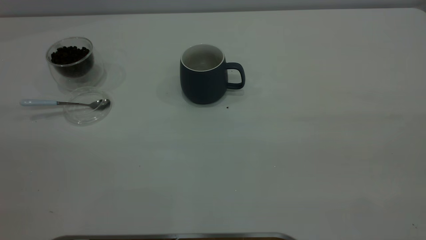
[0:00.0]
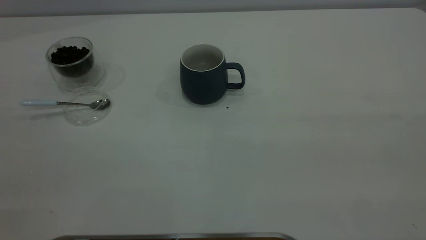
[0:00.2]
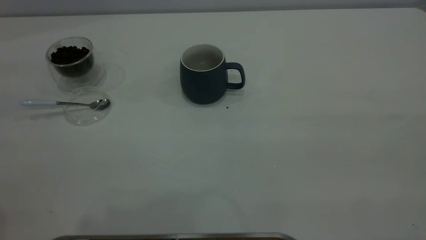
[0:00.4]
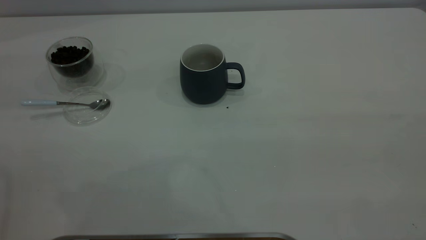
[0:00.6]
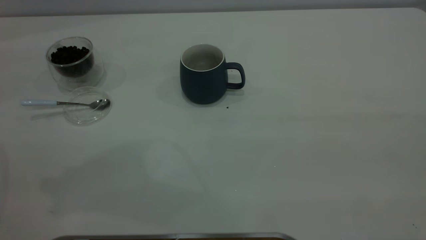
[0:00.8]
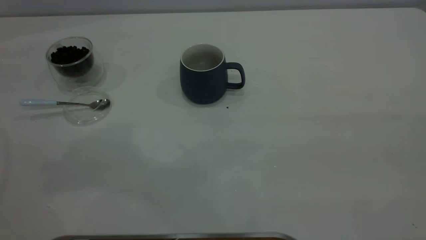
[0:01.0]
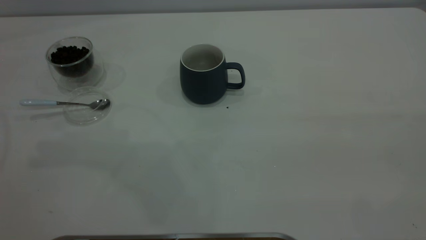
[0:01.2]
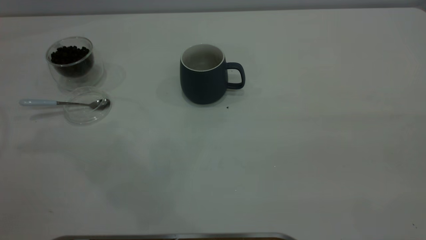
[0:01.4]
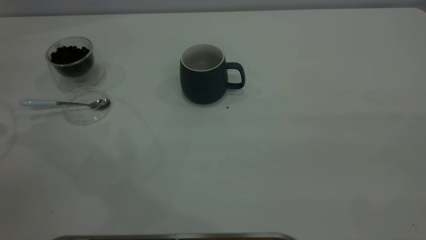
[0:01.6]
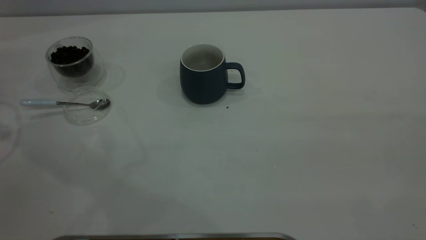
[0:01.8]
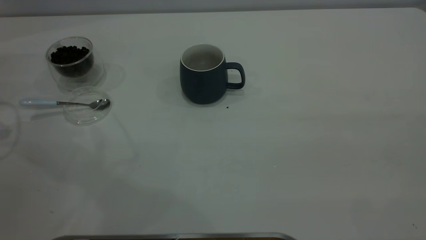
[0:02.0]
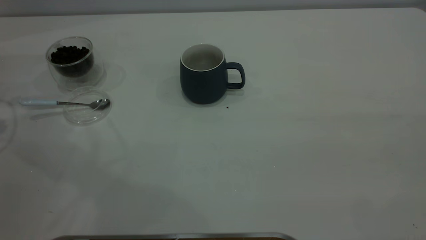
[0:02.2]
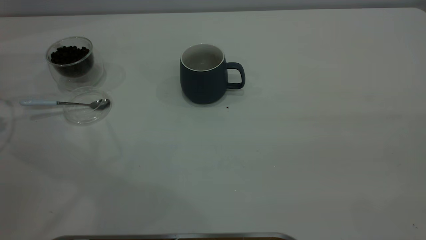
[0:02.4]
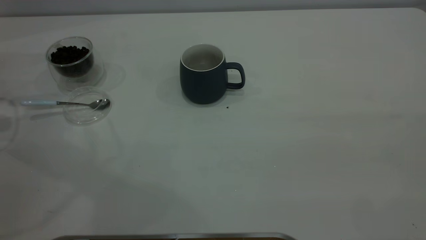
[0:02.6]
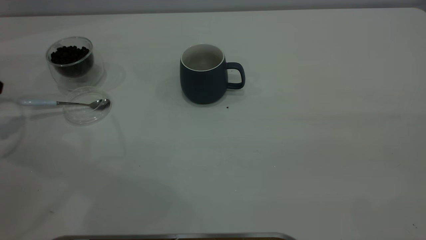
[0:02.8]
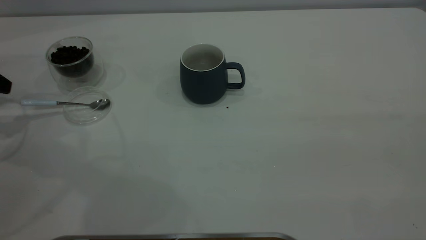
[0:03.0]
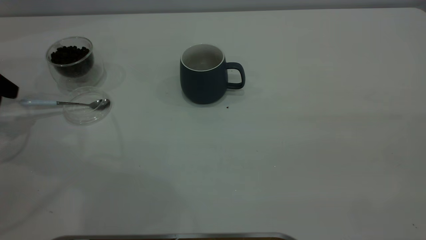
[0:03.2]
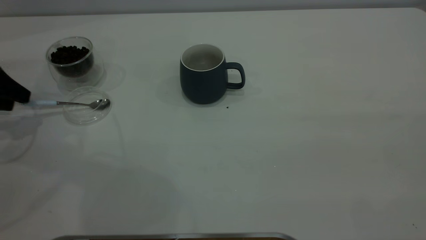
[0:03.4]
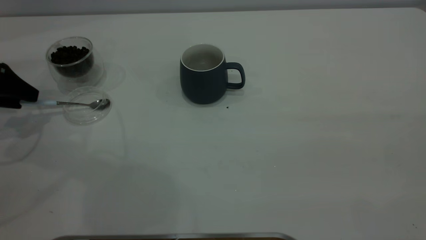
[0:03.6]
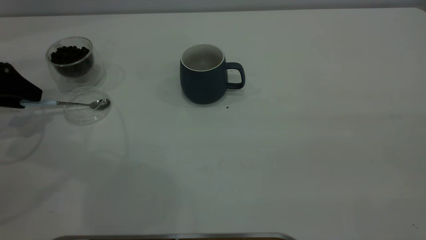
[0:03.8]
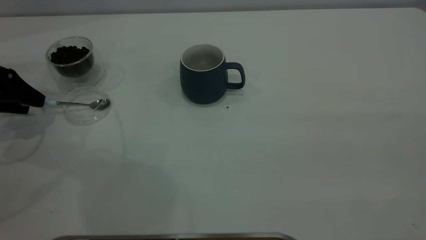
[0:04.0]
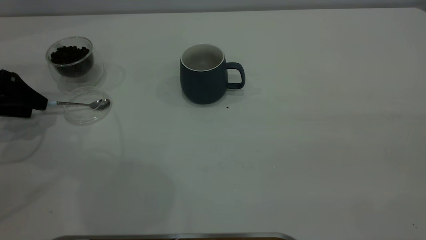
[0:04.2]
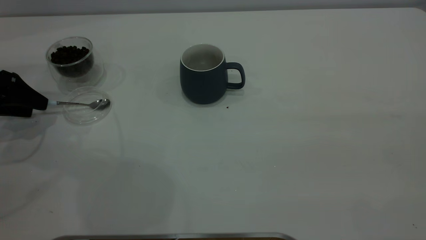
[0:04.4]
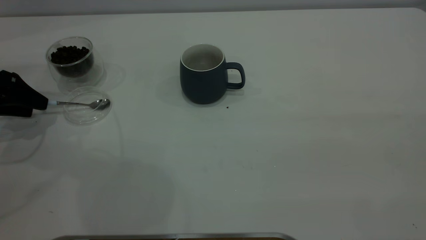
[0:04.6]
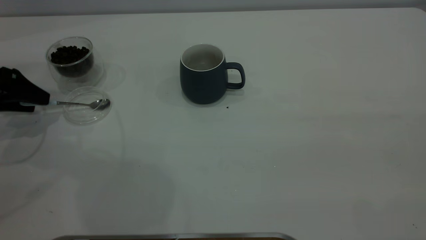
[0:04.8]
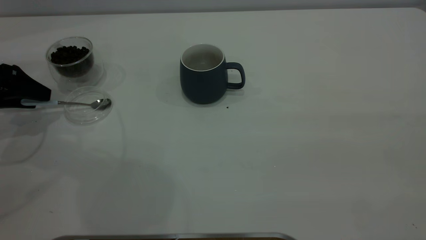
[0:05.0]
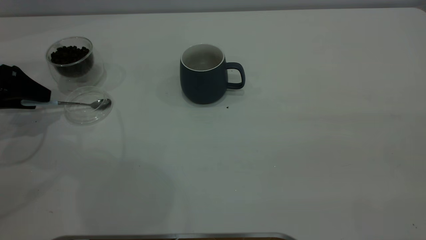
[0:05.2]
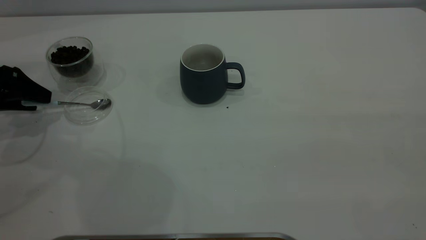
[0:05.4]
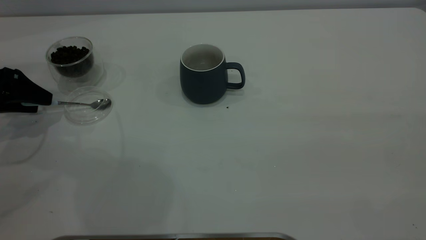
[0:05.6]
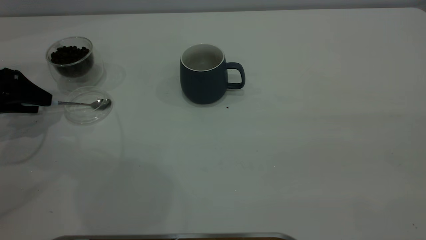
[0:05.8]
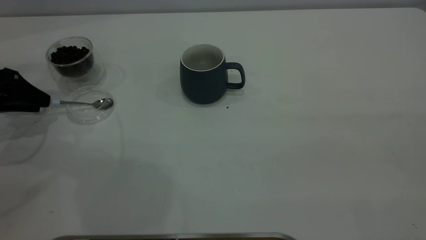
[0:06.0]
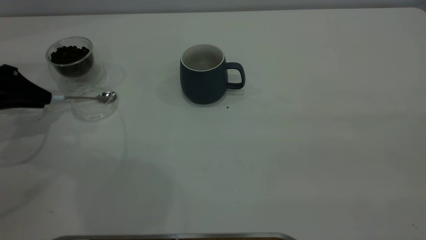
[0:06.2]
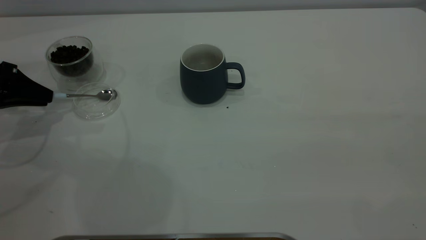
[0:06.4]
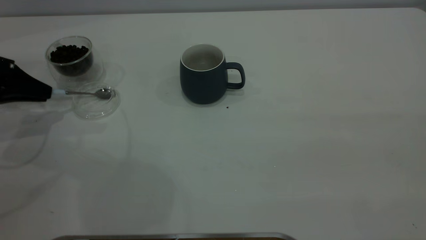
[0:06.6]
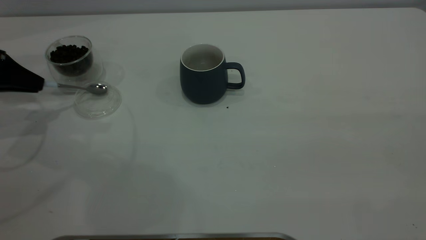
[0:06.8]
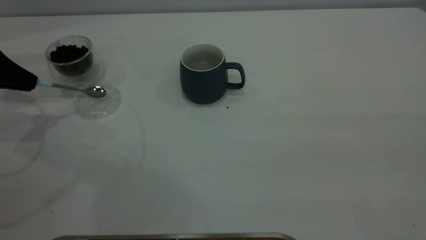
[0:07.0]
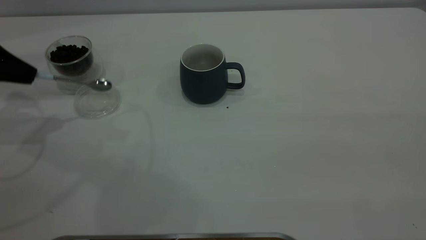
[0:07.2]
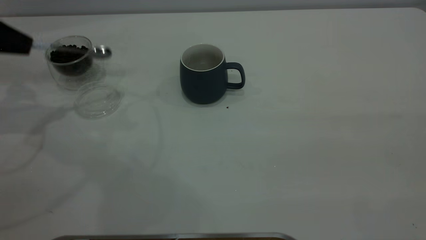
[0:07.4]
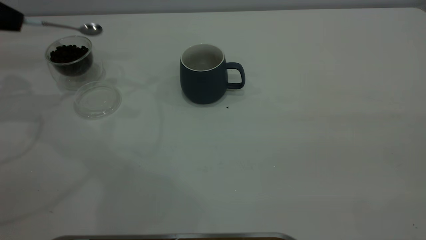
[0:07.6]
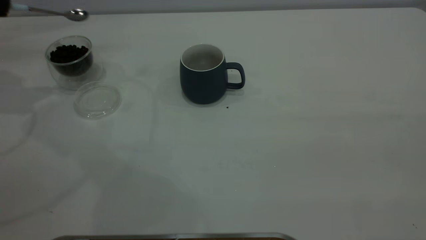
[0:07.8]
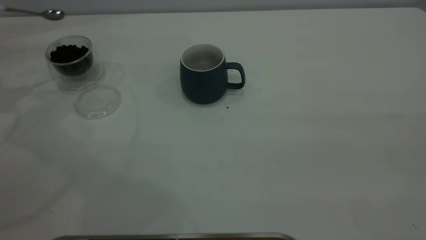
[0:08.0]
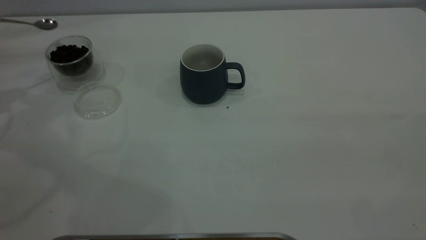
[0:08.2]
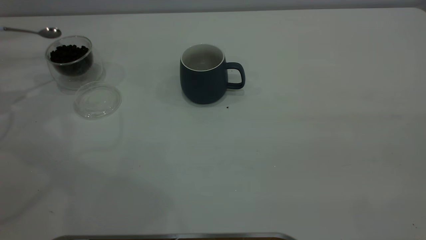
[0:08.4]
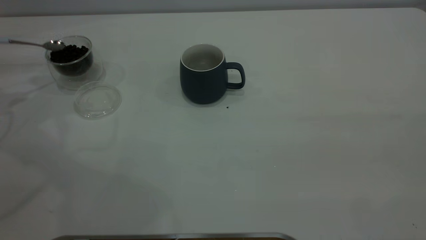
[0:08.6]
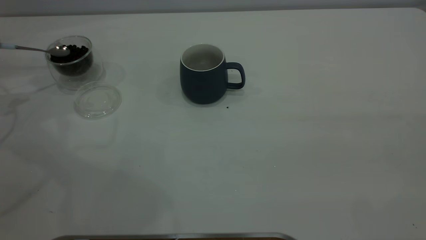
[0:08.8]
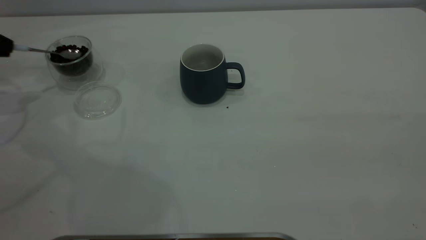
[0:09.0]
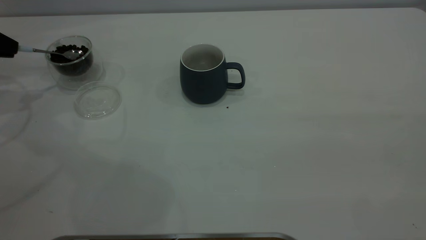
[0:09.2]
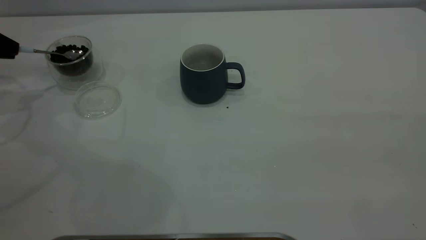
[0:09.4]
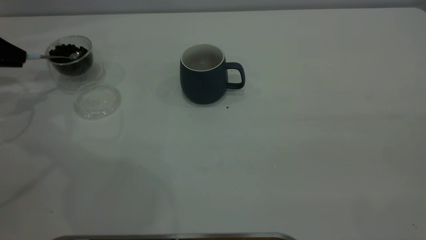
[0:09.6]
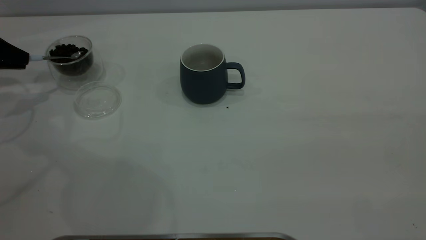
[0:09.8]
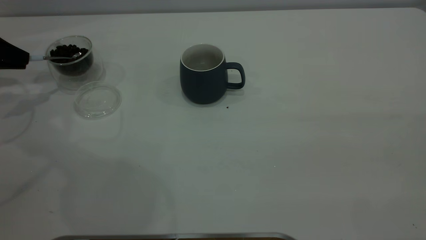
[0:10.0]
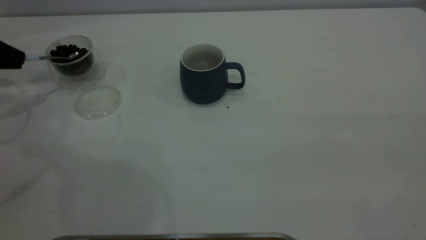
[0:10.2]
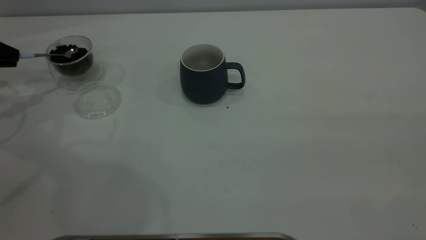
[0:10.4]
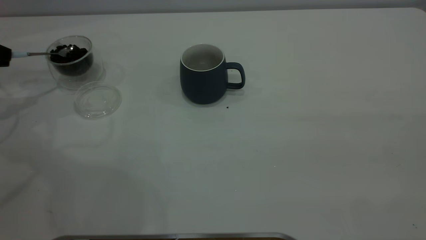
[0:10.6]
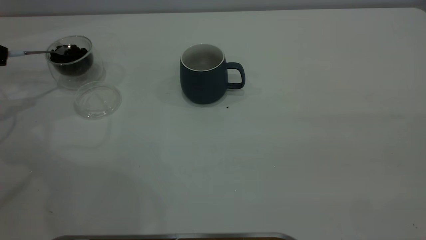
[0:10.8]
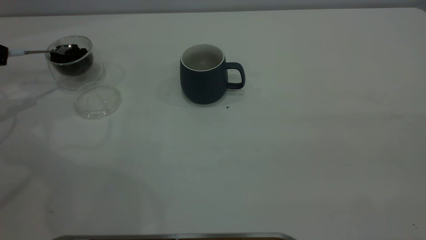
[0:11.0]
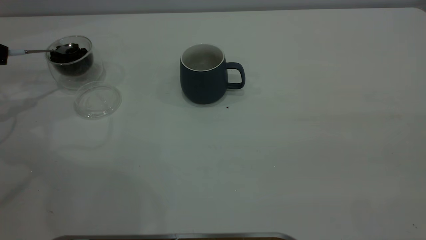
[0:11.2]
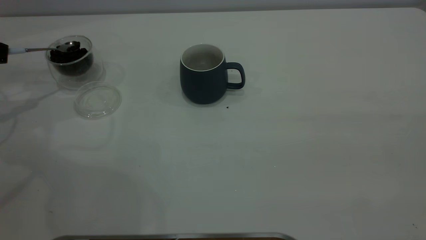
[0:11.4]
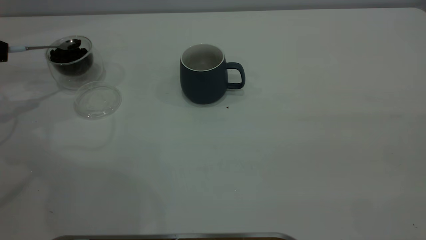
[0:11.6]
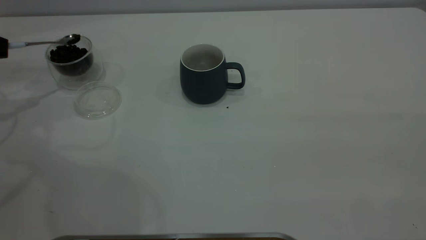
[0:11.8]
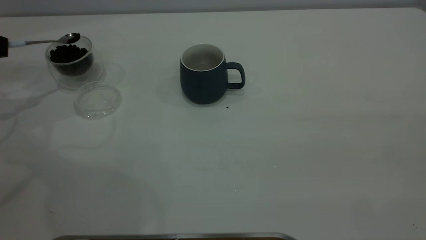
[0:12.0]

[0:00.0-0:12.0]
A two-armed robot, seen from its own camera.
Task of the whole recording: the right gripper place the grey cup in the center of the table, the left gripper take the blue spoon from the cup lid and scoop out the coffee beans from the coffee cup and put them into the grey cup, the left gripper put the spoon back into the cup lid.
Step, 0:00.0 to 0:07.6: Pick up the spoon.
0:03.0 to 0:04.4: The left gripper moves some 5 cm.
0:04.4 to 0:06.0: The left gripper closes.
0:06.0 to 0:07.6: The left gripper goes roughly 15 cm upward, and closes its fingers.
0:07.6 to 0:09.0: The left gripper goes approximately 5 cm downward.

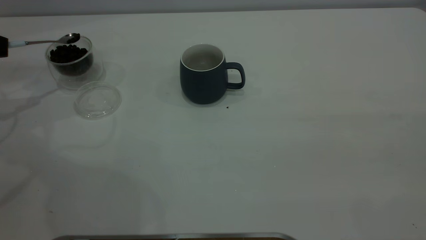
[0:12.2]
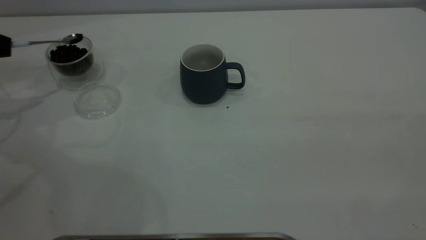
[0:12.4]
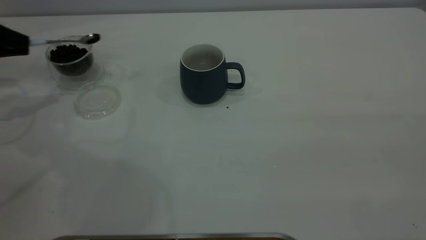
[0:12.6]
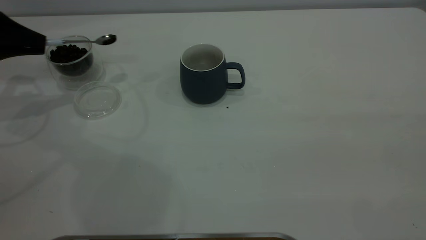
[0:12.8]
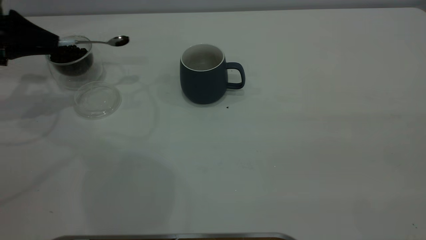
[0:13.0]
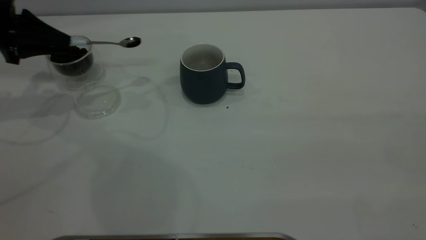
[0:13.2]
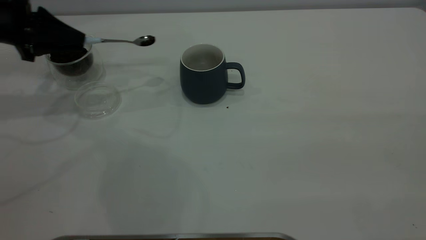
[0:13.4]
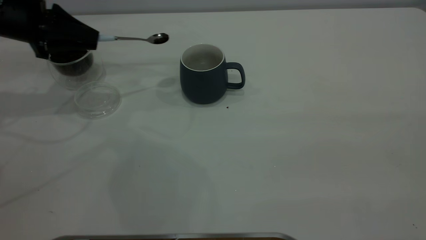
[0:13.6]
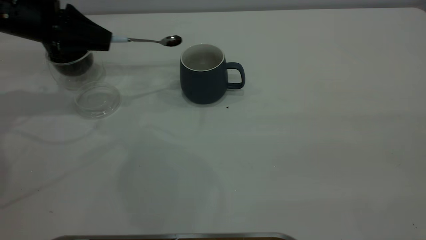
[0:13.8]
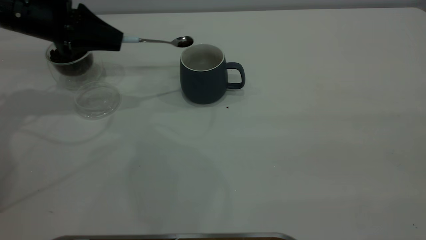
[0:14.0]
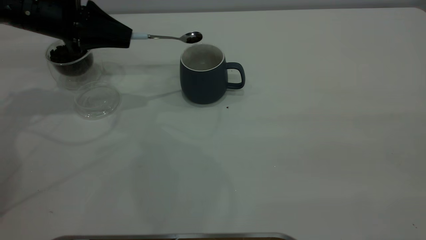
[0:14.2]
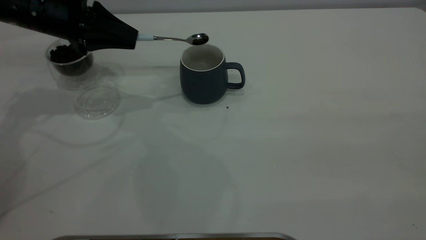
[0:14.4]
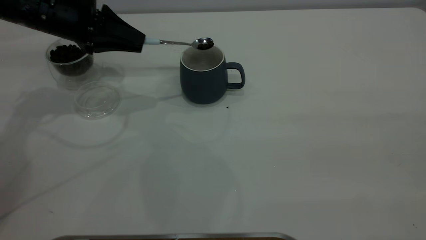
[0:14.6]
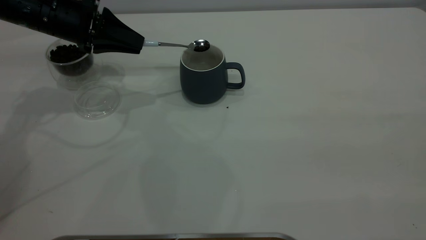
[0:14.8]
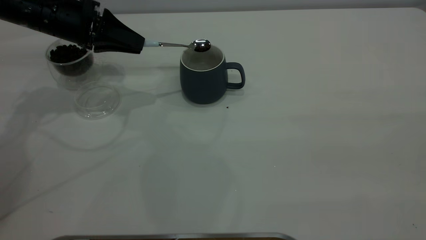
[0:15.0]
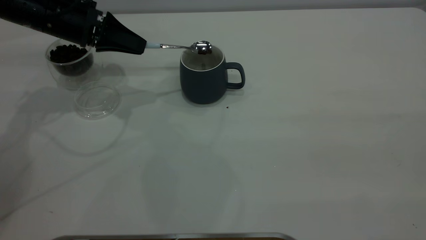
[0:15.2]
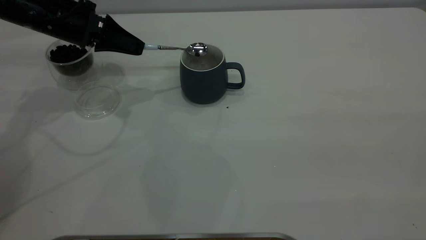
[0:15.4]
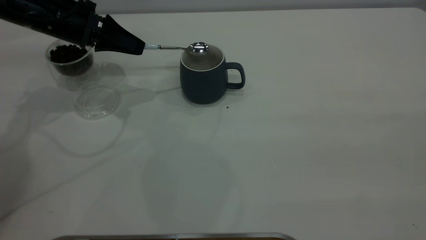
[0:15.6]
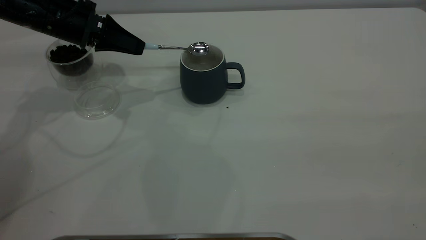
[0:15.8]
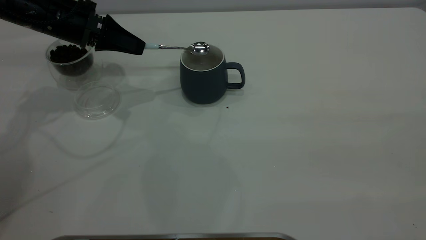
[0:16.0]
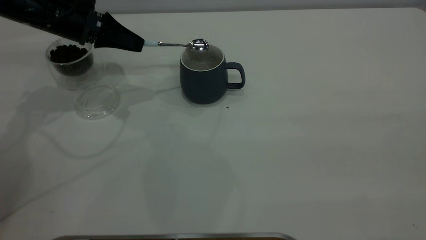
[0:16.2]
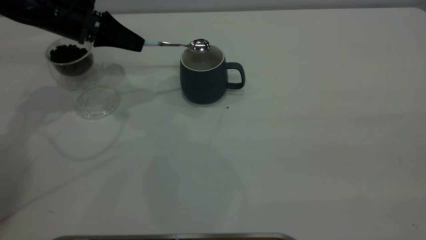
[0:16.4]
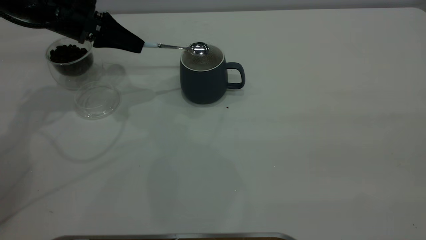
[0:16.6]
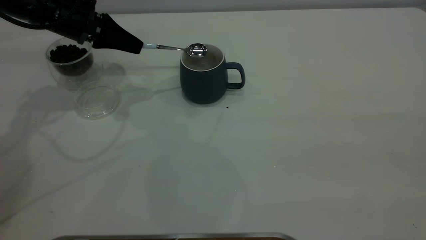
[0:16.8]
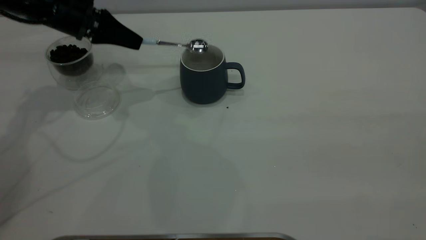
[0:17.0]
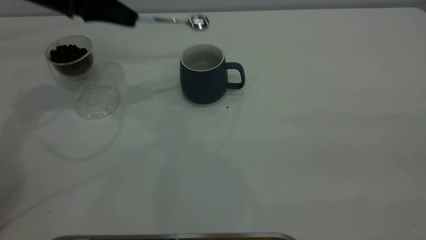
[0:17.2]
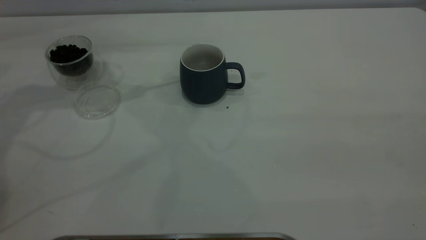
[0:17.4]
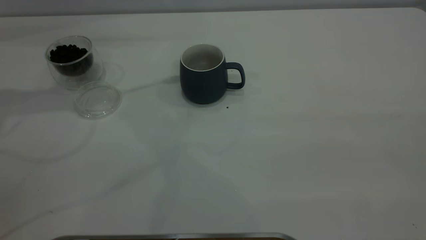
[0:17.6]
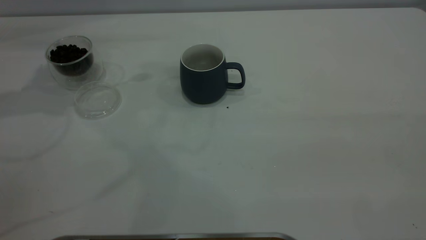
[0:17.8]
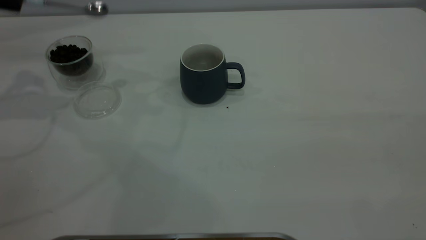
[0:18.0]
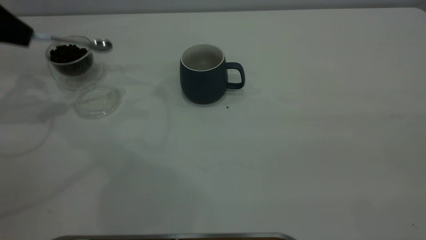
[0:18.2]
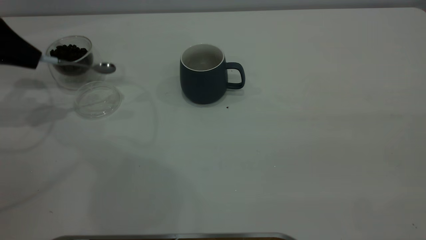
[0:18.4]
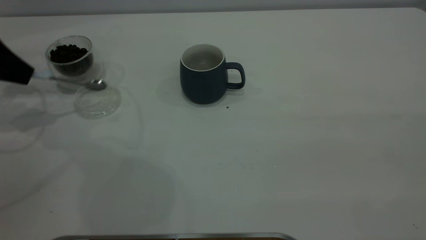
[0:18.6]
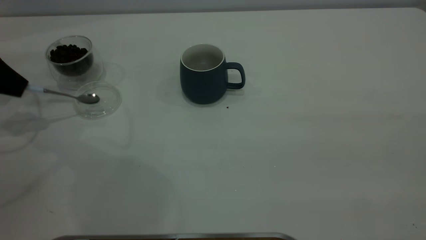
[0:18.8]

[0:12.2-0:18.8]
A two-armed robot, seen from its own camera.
Task of the whole recording: the right gripper place the grey cup in the center of the table, the left gripper take the blue spoon from the cup lid and scoop out the coffee beans from the coffee cup and put them into the grey cup, the left gripper put the spoon back into the cup lid.
Step, 0:12.2 to 0:17.0: Scoop a spoonful of beans into the cup.
0:12.2 to 0:13.8: The left gripper shifts some 15 cm to the right.
0:15.4 to 0:17.2: The left gripper is displaced upward by approximately 5 cm.
0:17.2 to 0:18.8: The left gripper heads to the left and downward, covering approximately 20 cm.
